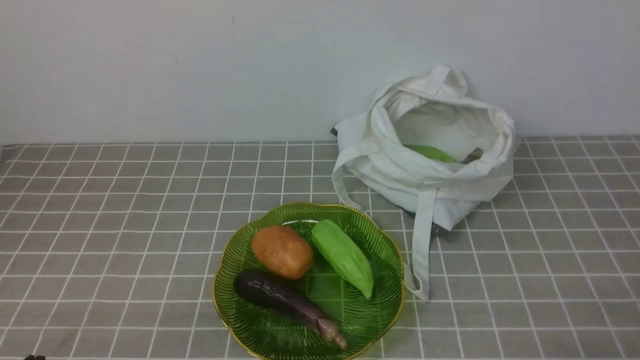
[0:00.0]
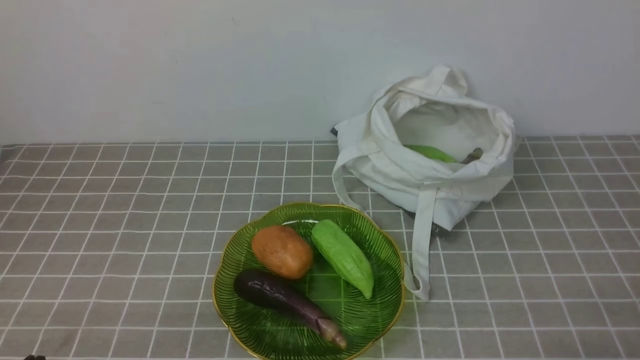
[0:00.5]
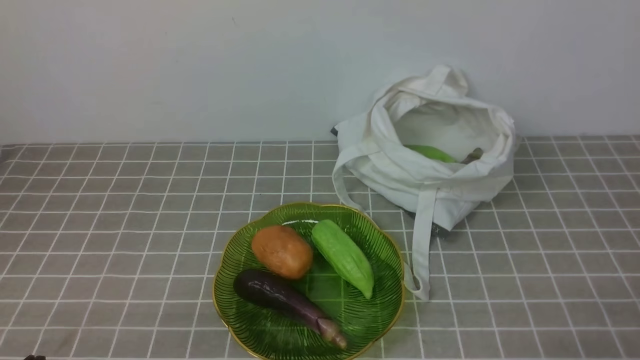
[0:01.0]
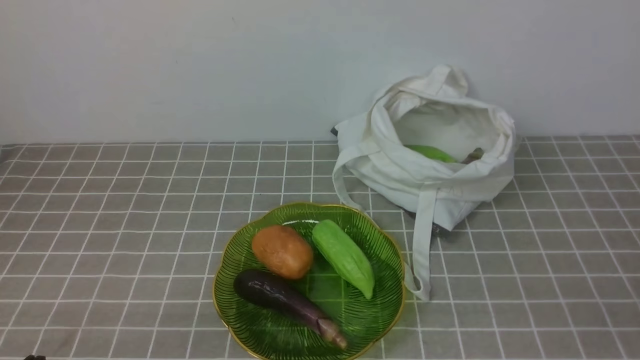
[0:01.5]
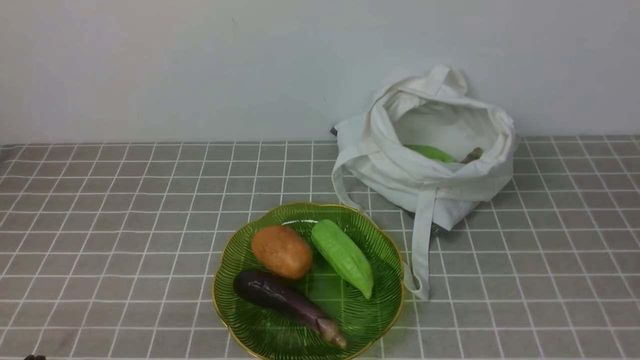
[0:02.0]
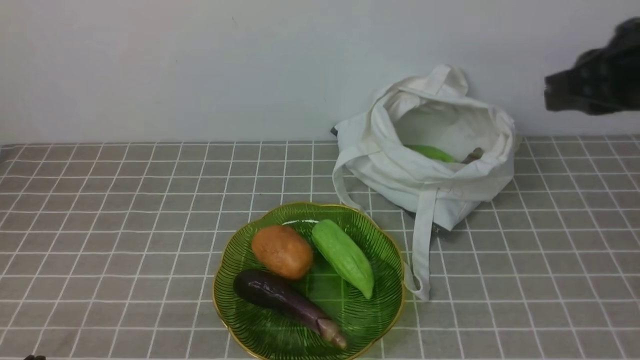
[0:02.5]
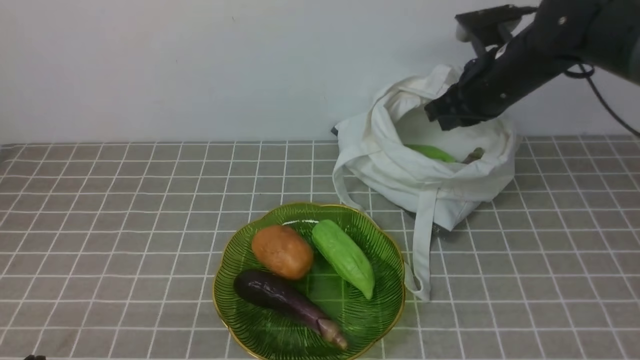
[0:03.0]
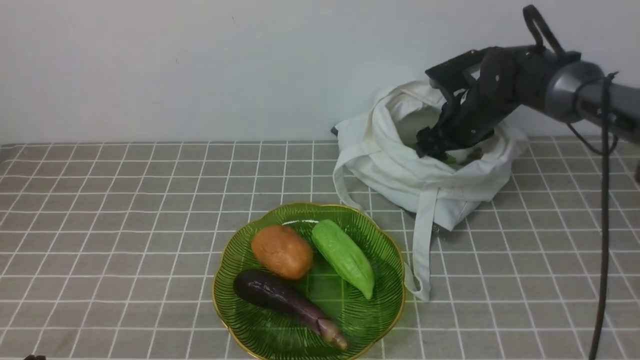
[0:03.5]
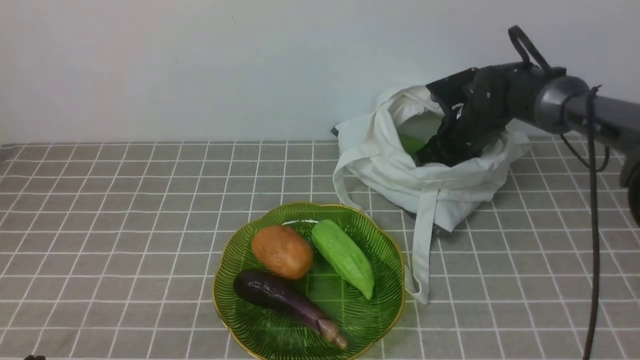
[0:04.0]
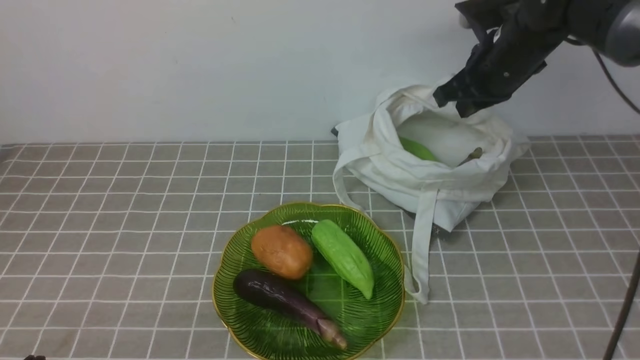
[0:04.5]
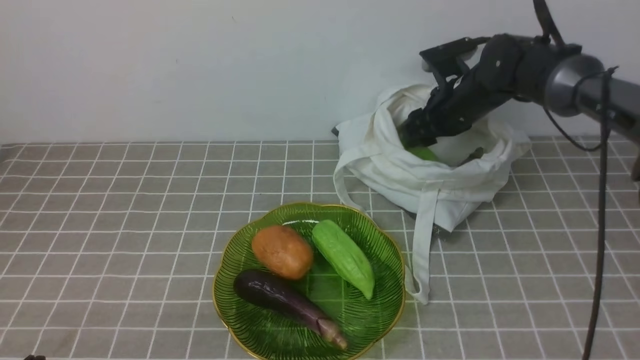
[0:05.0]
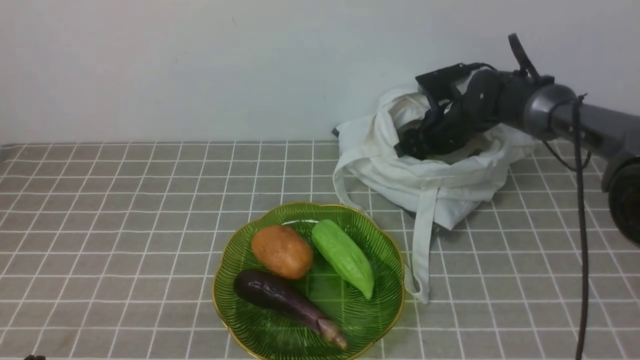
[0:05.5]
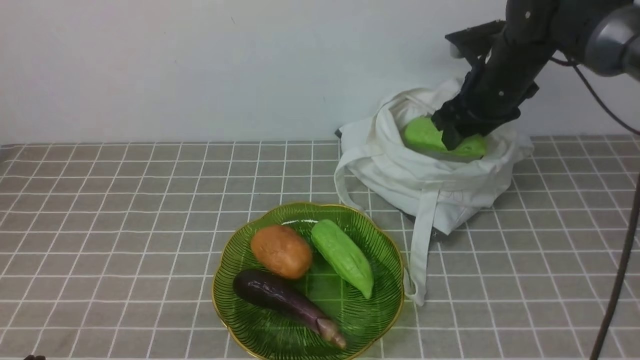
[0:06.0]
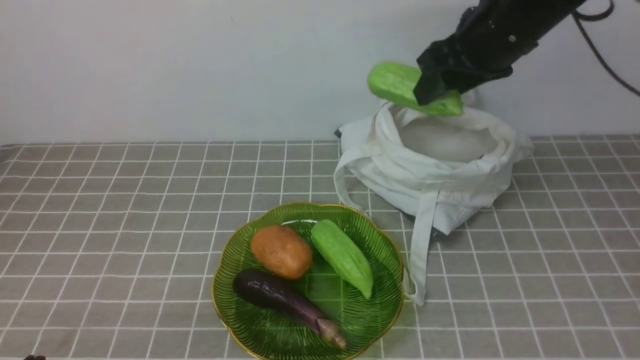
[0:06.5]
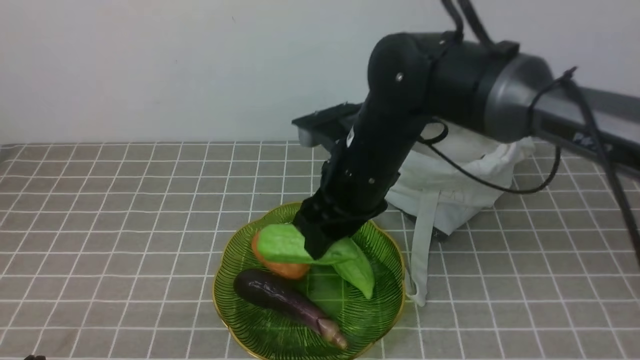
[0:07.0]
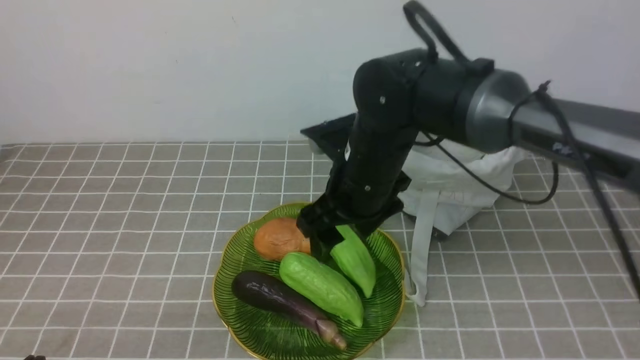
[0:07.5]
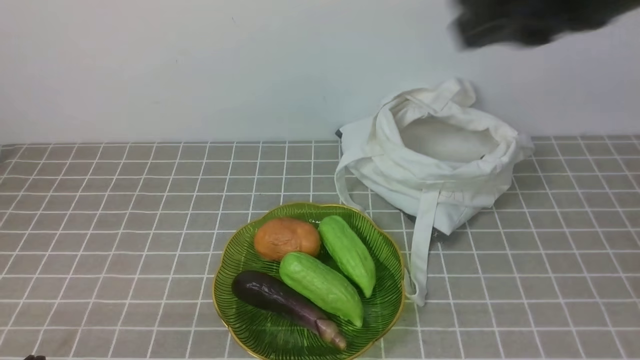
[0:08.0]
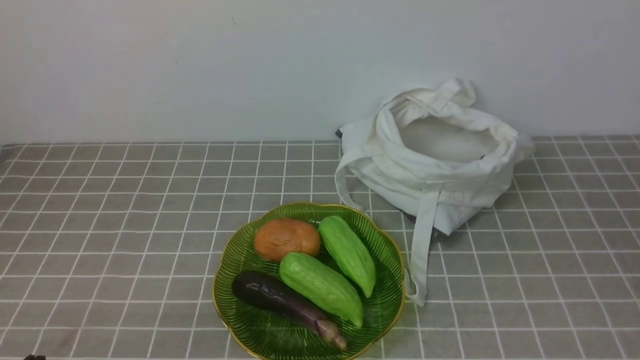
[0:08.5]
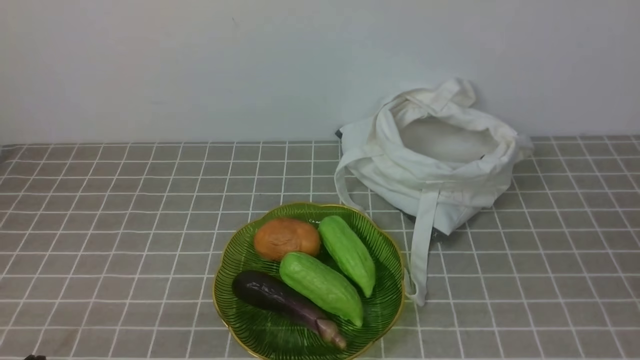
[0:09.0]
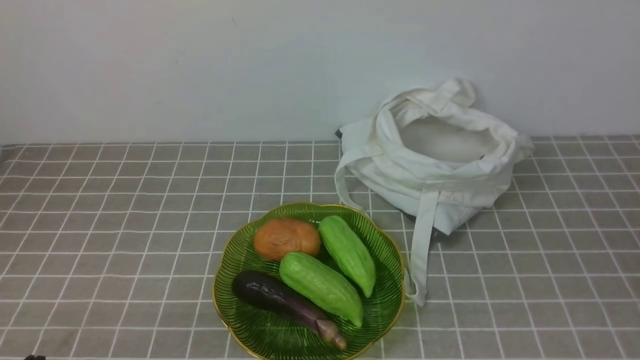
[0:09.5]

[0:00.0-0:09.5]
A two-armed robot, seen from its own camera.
Task of the whole recording: take vegetables from bag on grey coffee tablecloth place on plate.
Step, 0:00.0 to 0:05.5: Grasp the bitter melon with right gripper.
Step, 0:06.0 to 0:07.5: Place the bitter melon on the plate with right gripper.
0:02.0 to 0:04.0: The right gripper moves forward and downward, about 40 cm, and opens, then closes once more.
0:04.0 to 0:05.5: The right gripper travels upward and back again, approximately 10 cm each way, and opens its fingers.
0:05.5 to 0:07.5: The right gripper heads backward, to the left and upward, covering about 25 cm.
0:07.5 to 0:09.5: The right gripper heads backward and to the right, covering about 40 cm, and closes.

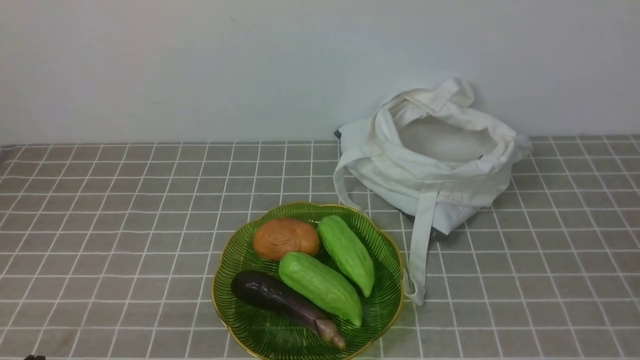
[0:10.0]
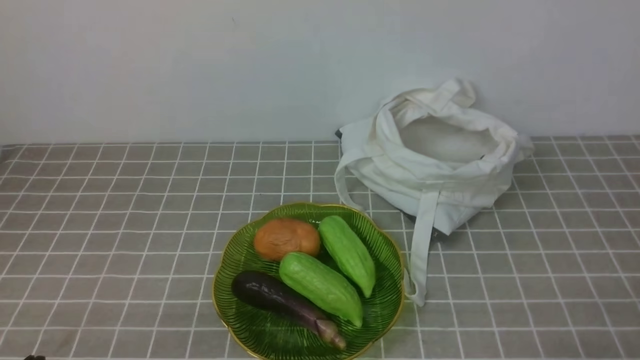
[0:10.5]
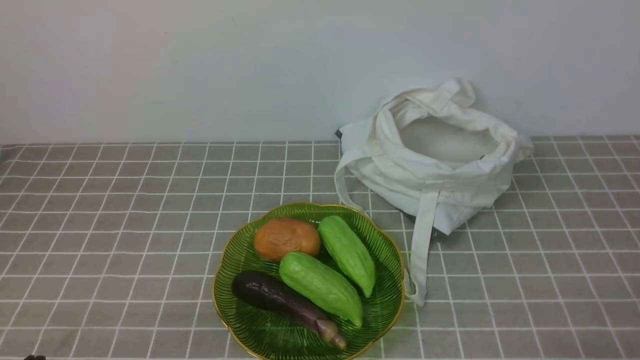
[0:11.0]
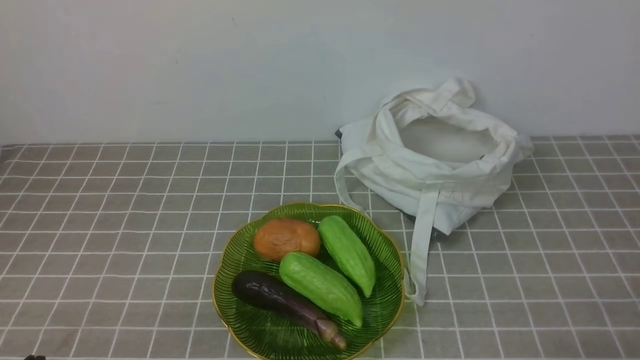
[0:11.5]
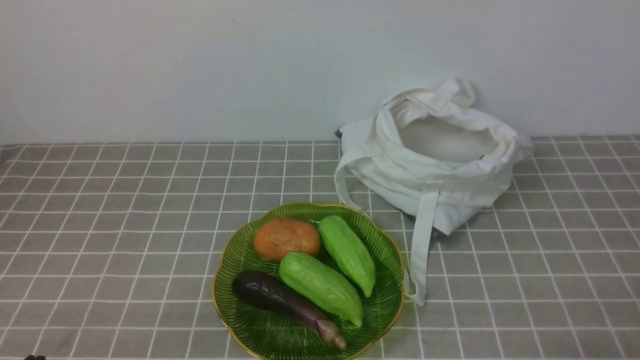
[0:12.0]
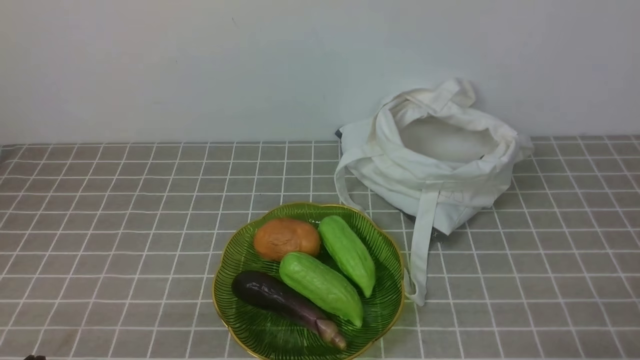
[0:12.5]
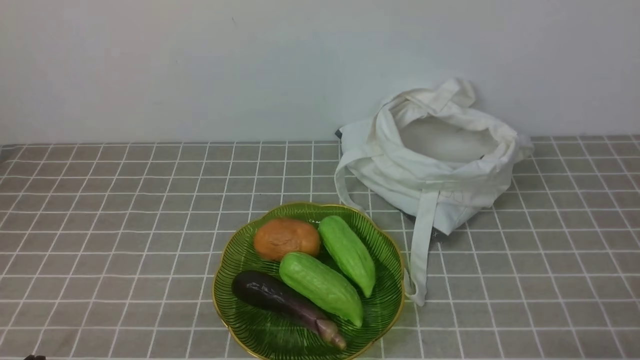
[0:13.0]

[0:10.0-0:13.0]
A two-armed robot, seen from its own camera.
Task of the whole recording: take vegetables from bag on grey coffee tablecloth place on plate.
0:11.5 to 0:13.0: Both grippers stay put.
